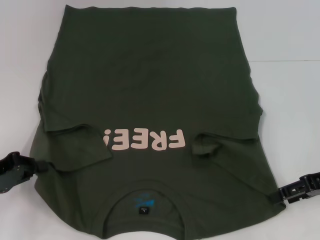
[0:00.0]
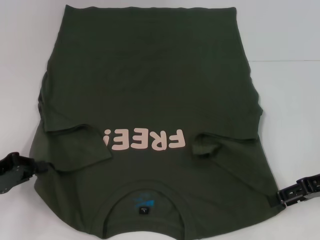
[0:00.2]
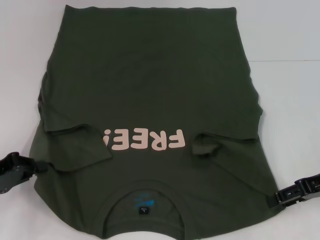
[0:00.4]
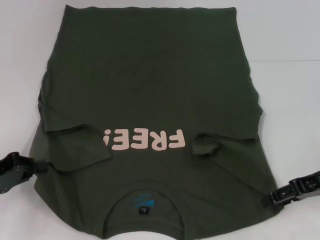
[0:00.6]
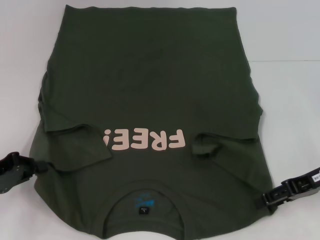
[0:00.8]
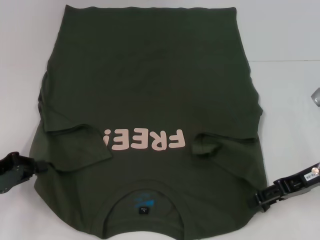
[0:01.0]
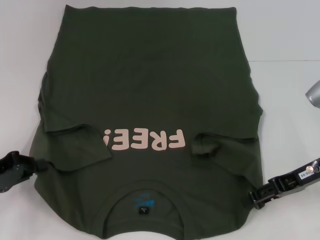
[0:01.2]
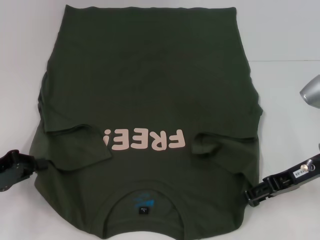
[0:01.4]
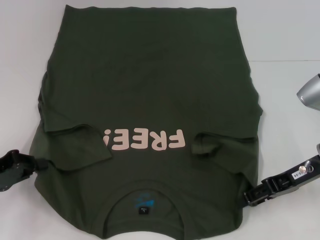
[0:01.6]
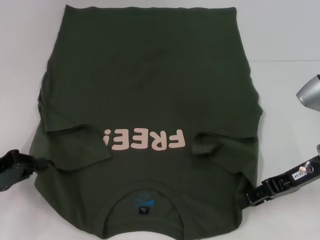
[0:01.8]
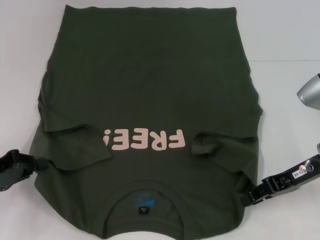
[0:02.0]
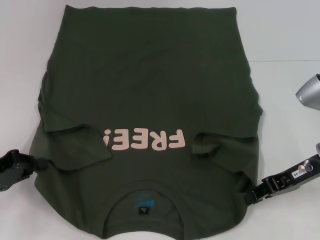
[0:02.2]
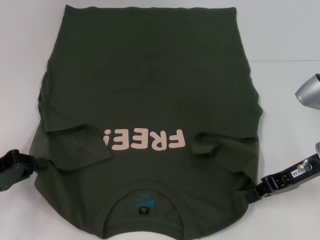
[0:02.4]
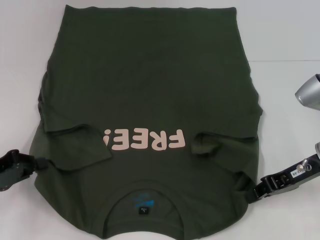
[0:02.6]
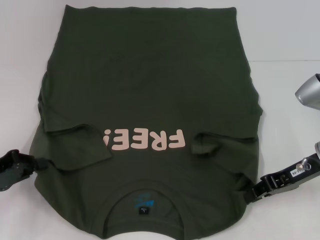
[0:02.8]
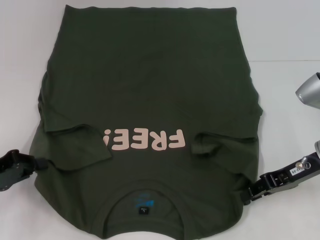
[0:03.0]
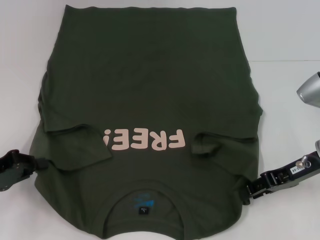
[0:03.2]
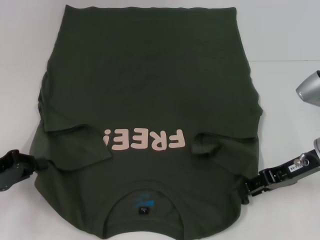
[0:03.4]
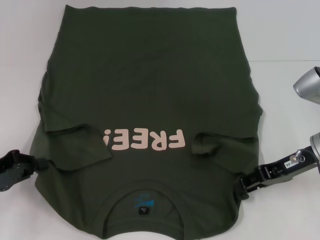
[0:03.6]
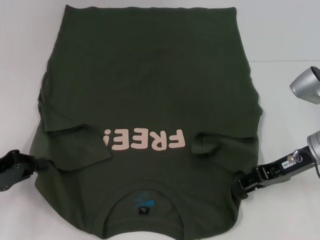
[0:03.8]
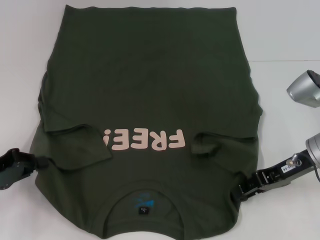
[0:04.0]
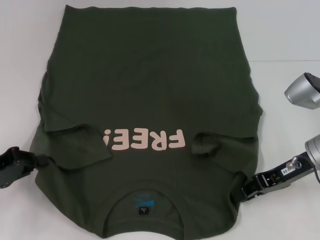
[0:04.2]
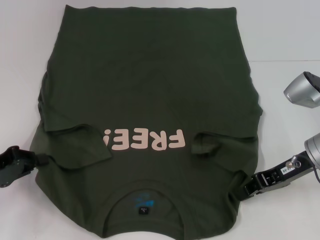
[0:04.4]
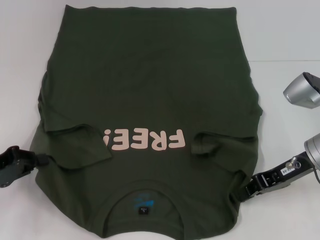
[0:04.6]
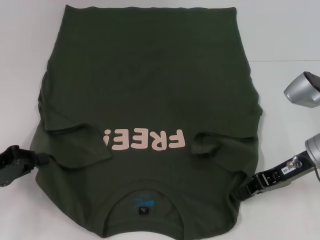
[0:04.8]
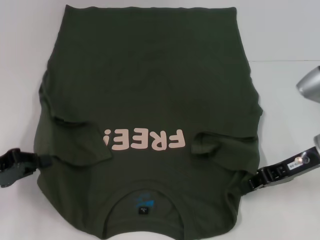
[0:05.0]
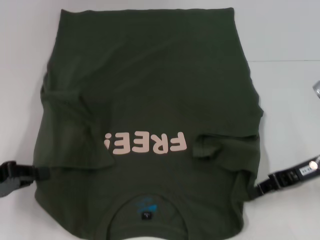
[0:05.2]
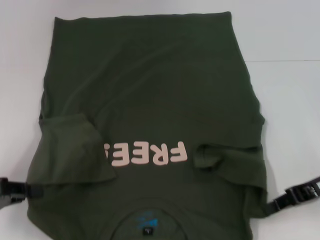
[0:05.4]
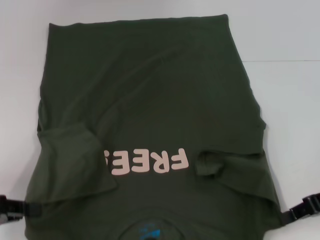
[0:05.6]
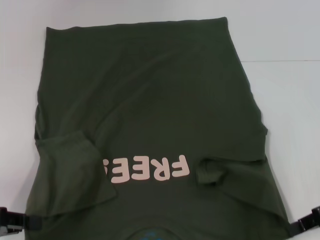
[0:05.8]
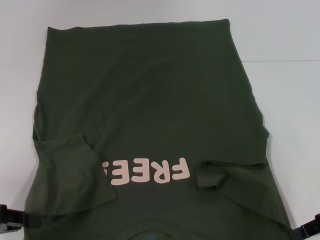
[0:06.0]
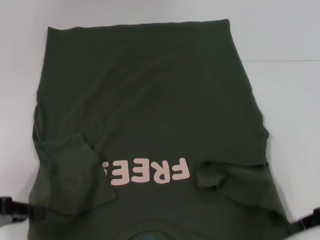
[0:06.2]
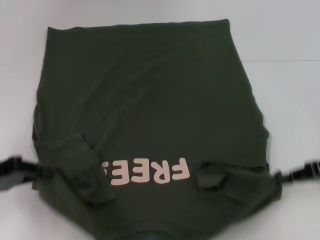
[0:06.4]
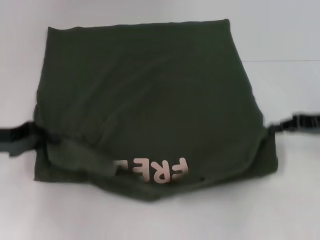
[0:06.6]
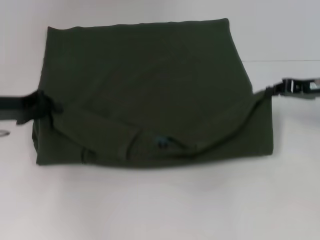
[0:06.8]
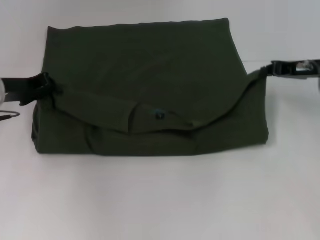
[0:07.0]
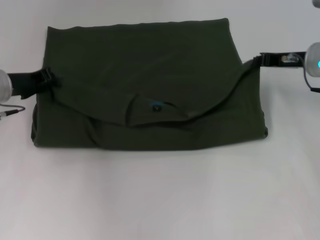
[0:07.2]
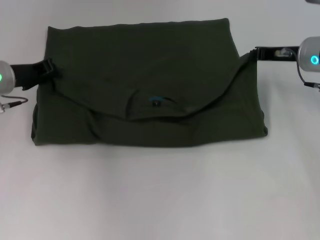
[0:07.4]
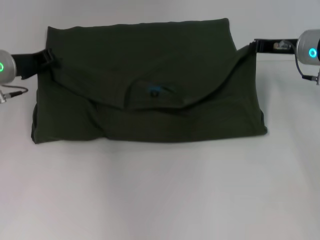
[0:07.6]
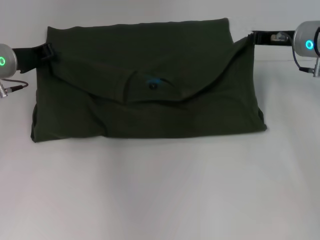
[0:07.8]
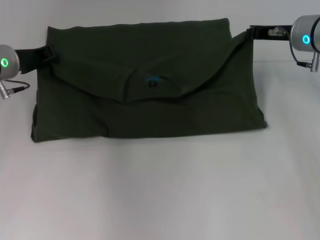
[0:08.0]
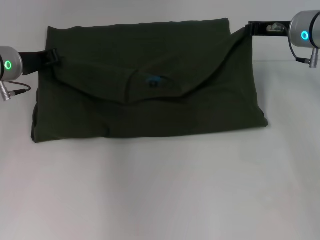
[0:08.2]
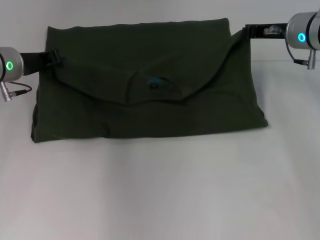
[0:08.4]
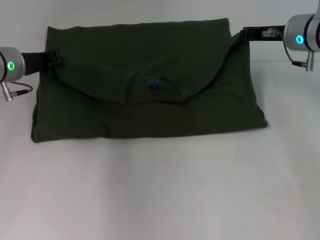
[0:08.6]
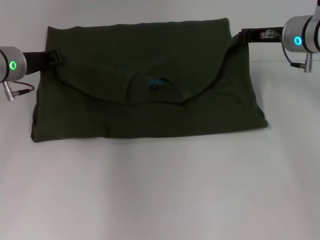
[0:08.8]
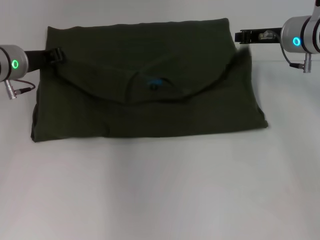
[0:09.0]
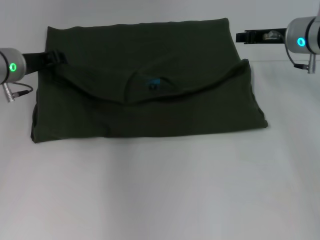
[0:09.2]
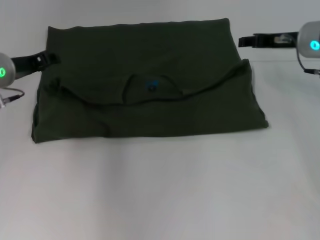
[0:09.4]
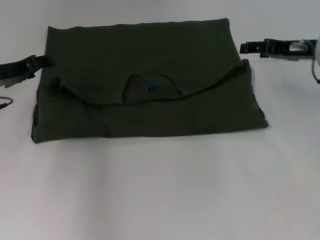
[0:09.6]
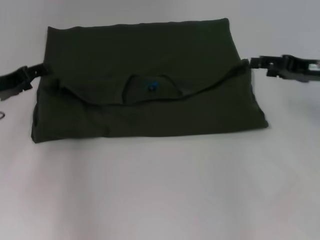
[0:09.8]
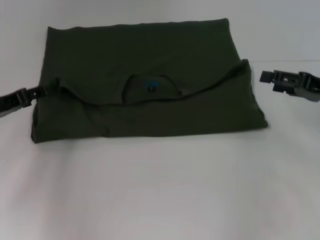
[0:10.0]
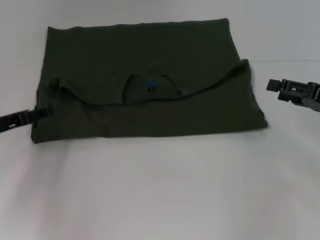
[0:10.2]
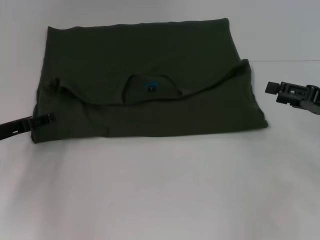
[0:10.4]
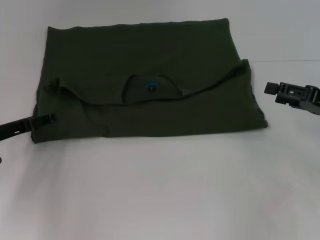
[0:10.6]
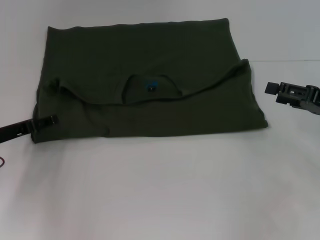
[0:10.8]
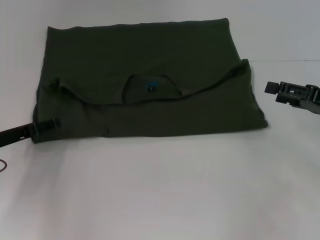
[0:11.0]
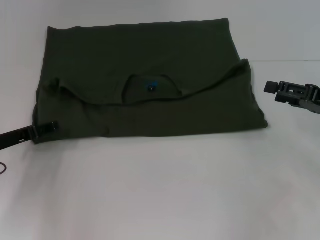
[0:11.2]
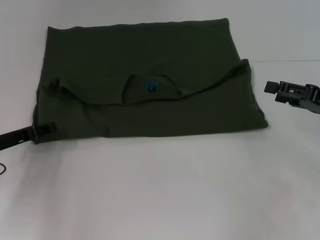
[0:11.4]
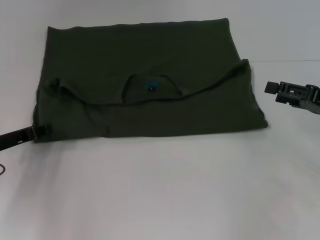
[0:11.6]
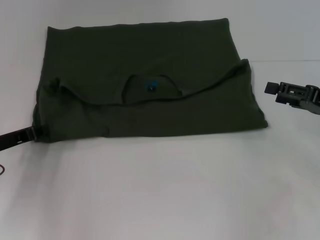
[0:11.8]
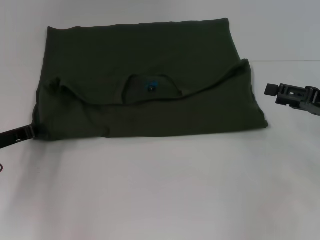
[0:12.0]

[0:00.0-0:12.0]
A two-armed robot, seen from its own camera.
Step, 0:00.0 to 0:04.8: Grab the bottom right corner with your right hand.
Step, 0:05.0 to 0:09.4: Fold the clothes with your left hand.
Step, 0:05.0 to 0:09.4: Fold the clothes with your right hand.
0:00.0 to 0:01.6: The right gripper is displaced to the left by about 5 cm.
0:01.6 to 0:03.0: The right gripper closes.
0:03.0 to 0:04.4: There are only small adjustments of the grippers.
0:04.4 to 0:06.0: The left gripper is displaced backward by about 5 cm, while the right gripper shifts approximately 10 cm to the right and backward.
0:06.0 to 0:07.6: The right gripper is displaced forward and to the left by some 20 cm; the left gripper goes approximately 20 cm forward.
0:07.6 to 0:09.0: There are only small adjustments of the grippers.
0:09.0 to 0:10.4: The left gripper is displaced backward, downward and to the left by some 15 cm, and opens up. The right gripper moves backward and to the right, some 20 cm, and opens.
0:10.4 to 0:12.0: The left gripper closes its fingers.

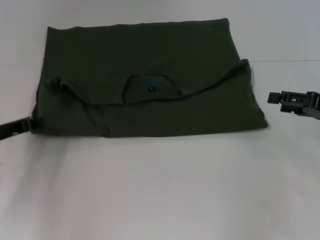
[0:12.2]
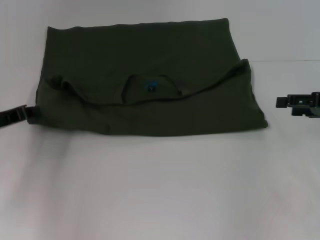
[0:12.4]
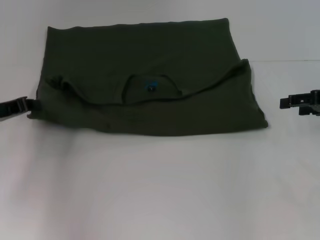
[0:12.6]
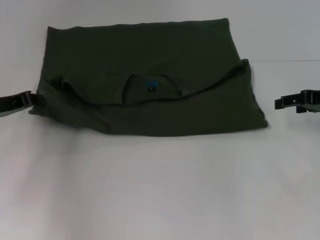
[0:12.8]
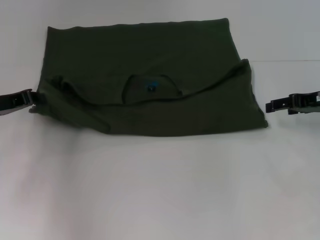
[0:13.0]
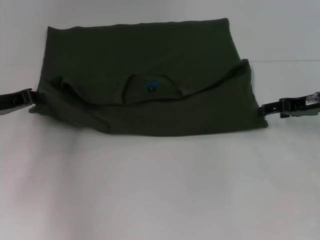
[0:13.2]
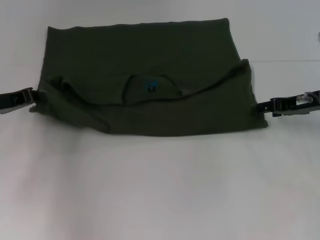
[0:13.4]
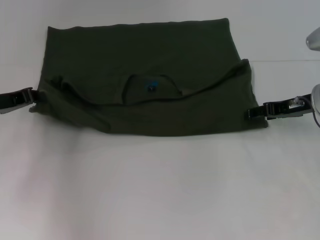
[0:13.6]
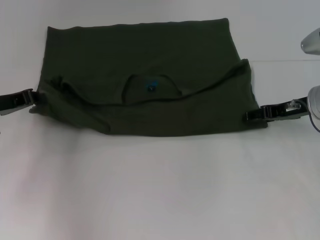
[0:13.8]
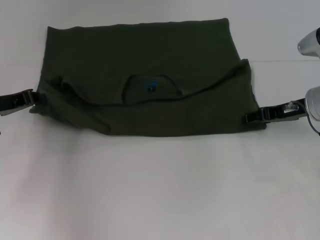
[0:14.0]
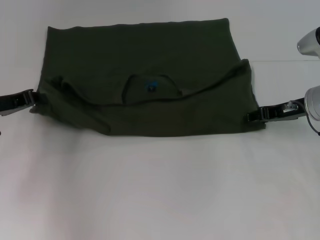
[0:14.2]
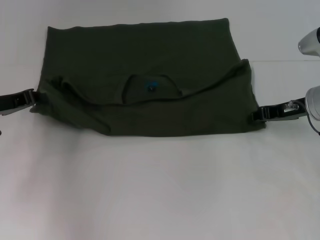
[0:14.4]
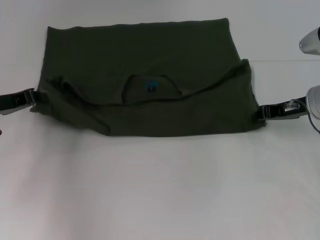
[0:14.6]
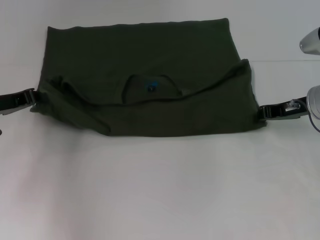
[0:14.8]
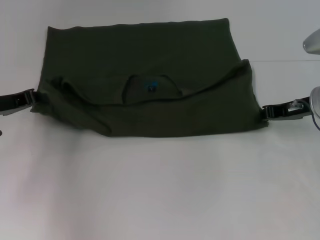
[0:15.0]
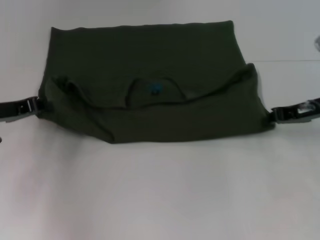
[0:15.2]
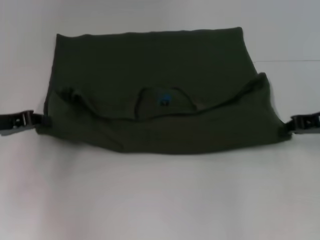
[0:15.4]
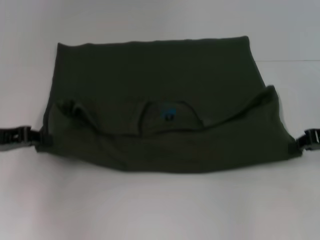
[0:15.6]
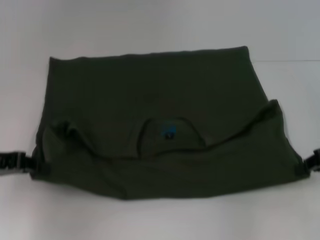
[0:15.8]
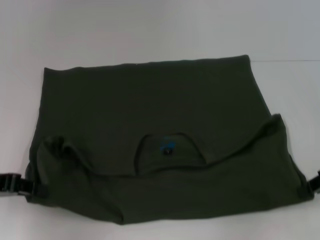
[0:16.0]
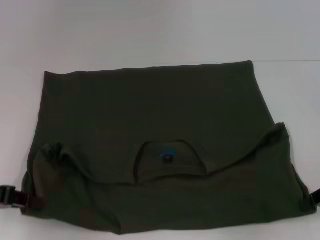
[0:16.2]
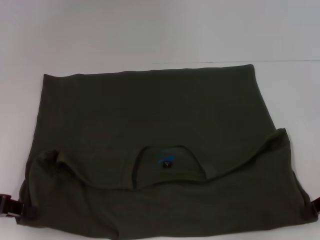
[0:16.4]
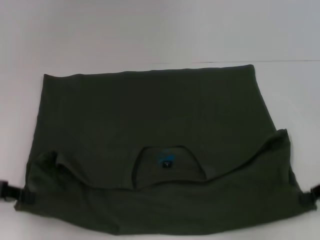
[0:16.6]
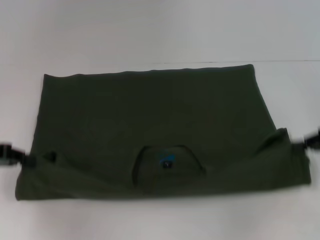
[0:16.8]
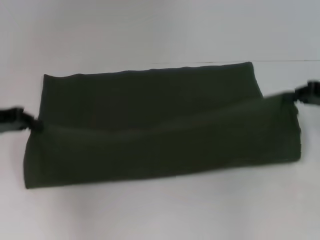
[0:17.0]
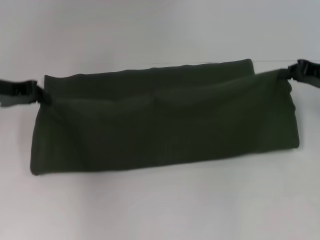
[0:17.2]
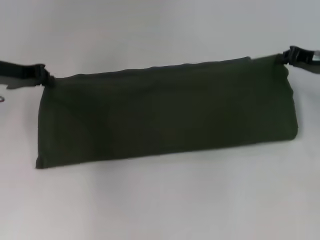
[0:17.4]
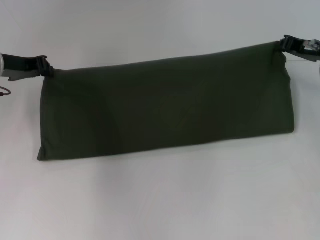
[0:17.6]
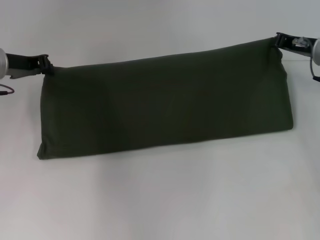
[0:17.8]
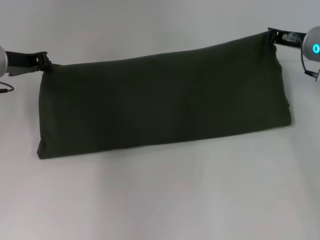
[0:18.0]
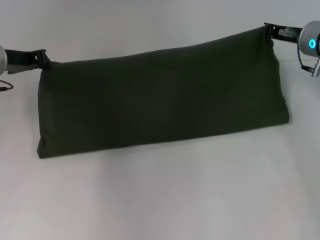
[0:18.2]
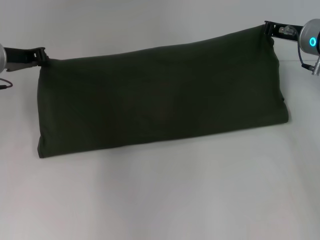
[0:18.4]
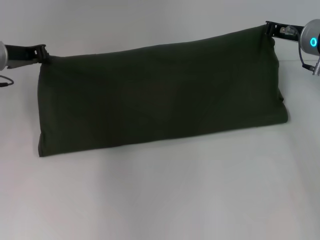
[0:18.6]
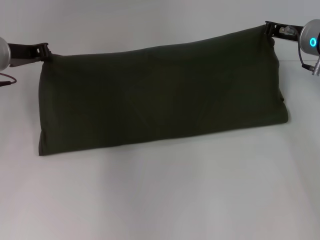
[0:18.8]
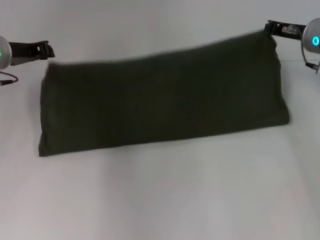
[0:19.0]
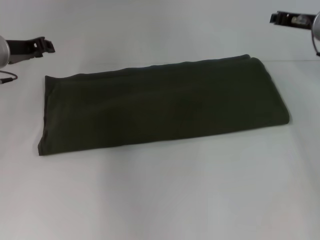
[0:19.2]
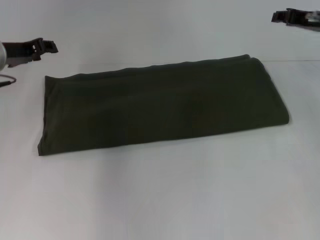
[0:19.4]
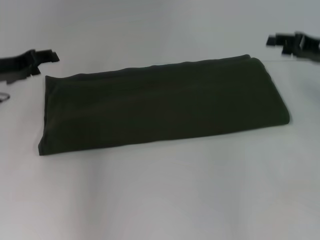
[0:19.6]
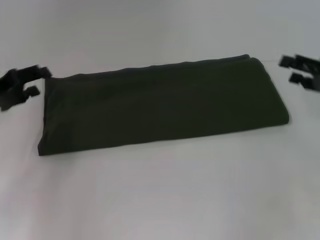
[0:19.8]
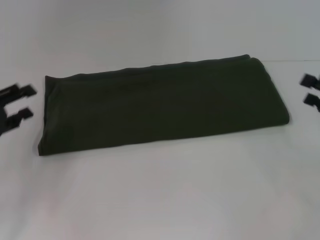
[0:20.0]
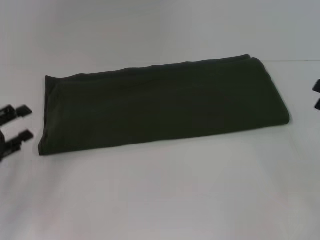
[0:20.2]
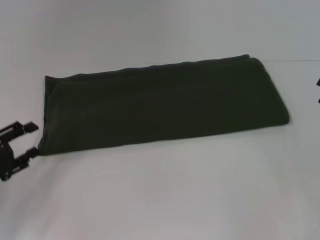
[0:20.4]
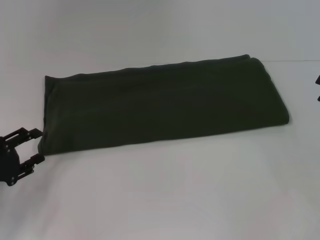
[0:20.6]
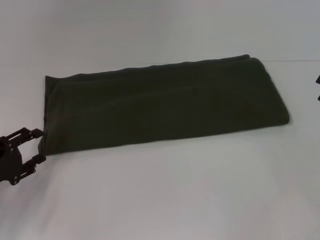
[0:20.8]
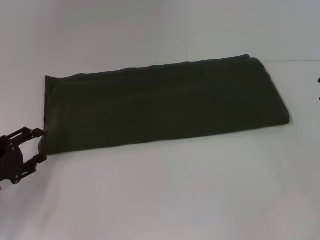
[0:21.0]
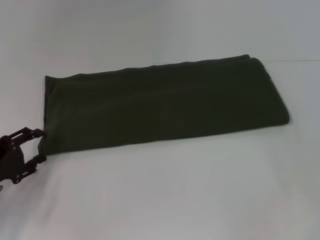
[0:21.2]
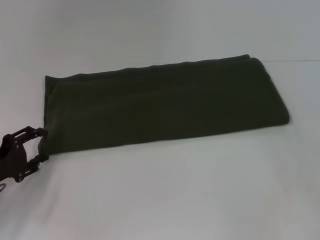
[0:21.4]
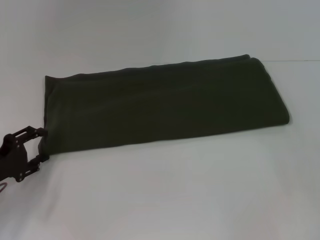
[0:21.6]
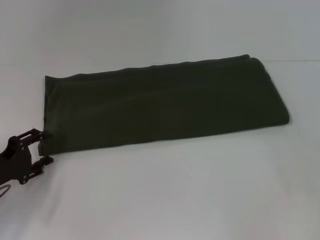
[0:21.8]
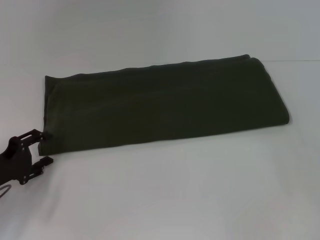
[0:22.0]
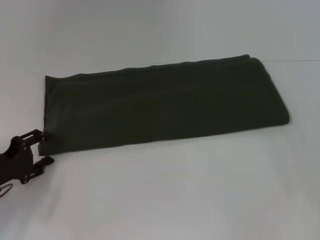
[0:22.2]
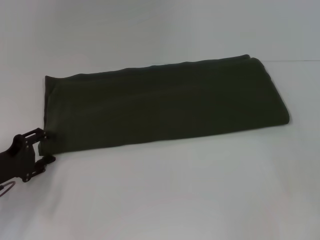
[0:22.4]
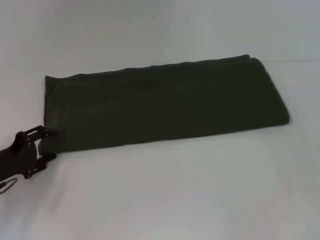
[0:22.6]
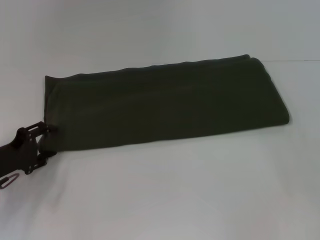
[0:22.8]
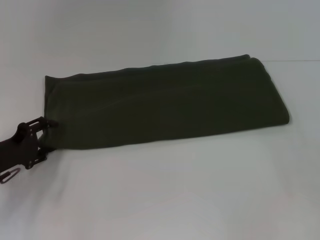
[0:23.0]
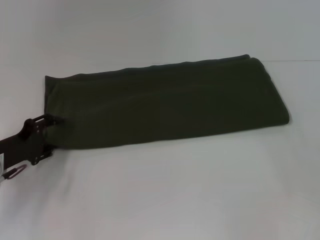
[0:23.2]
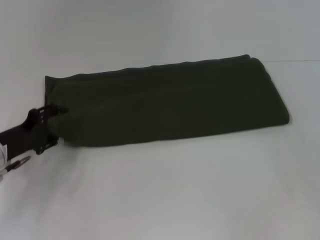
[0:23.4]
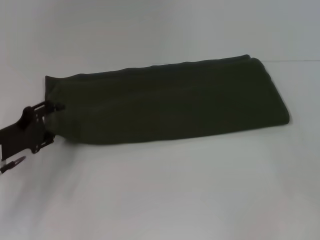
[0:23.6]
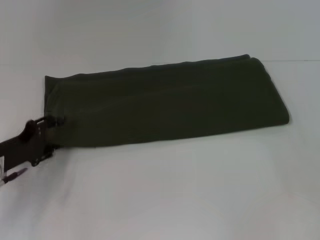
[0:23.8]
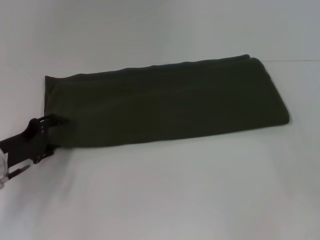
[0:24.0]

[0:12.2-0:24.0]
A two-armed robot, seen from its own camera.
Step, 0:12.2 to 0:16.4: Pull the clothes with your left hand.
Step, 0:12.2 to 0:16.4: Pull the clothes with your right hand.
Step, 0:16.6 to 0:19.0: Fold the clothes with your right hand.
0:12.2 to 0:13.6: The left gripper shifts by some 5 cm. Meanwhile the right gripper shifts about 10 cm to the left and forward.
0:13.6 to 0:15.2: The right gripper closes up.
0:15.2 to 0:16.6: The left gripper heads backward, covering roughly 10 cm. Meanwhile the right gripper moves backward and to the right, about 10 cm.
0:16.6 to 0:18.2: The right gripper goes some 20 cm forward and to the left. The left gripper moves forward, some 20 cm.
0:18.2 to 0:19.6: The left gripper opens its fingers. Meanwhile the right gripper shifts some 5 cm to the right.
0:19.6 to 0:21.0: The left gripper travels backward and downward by some 20 cm; the right gripper heads backward and to the right, covering some 15 cm, and opens its fingers.
0:21.0 to 0:22.6: There are only small adjustments of the grippers.
0:22.6 to 0:24.0: The grippers make only small movements.
